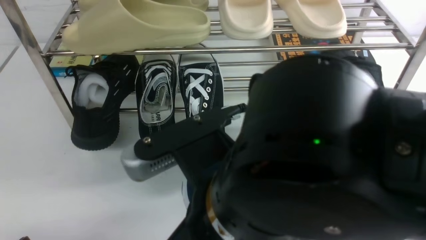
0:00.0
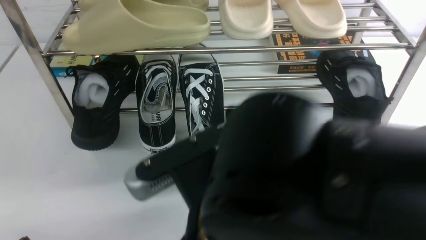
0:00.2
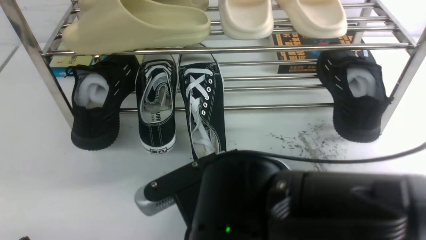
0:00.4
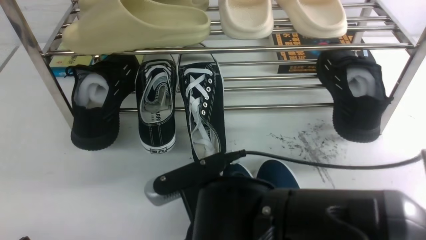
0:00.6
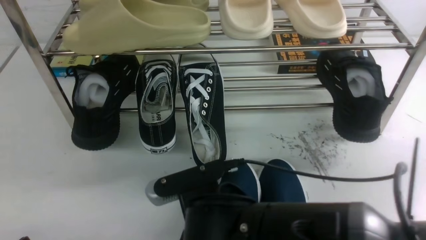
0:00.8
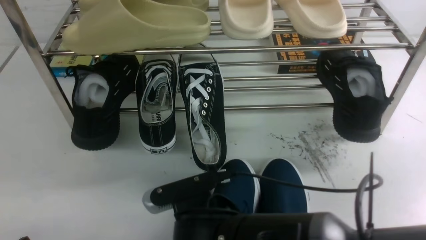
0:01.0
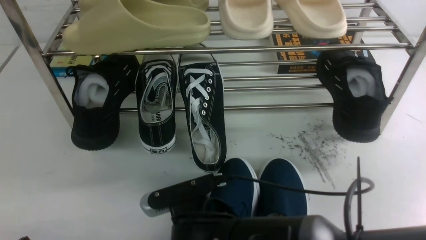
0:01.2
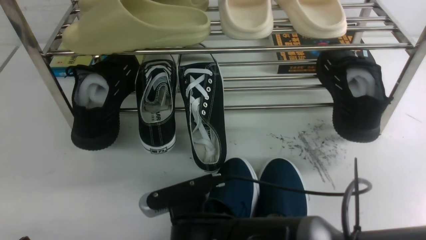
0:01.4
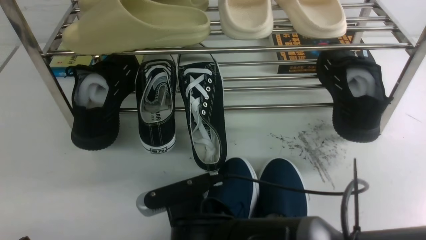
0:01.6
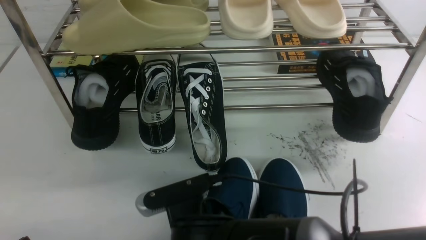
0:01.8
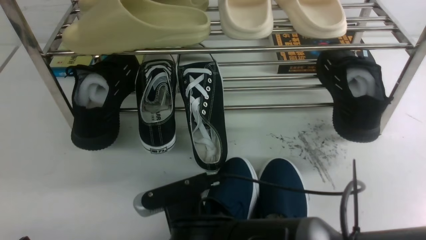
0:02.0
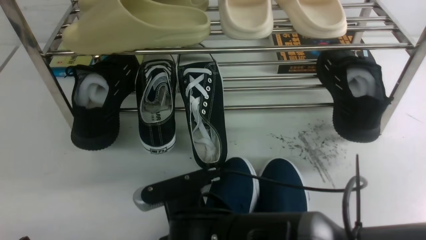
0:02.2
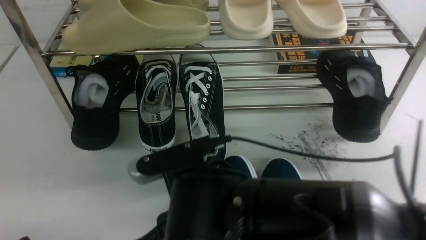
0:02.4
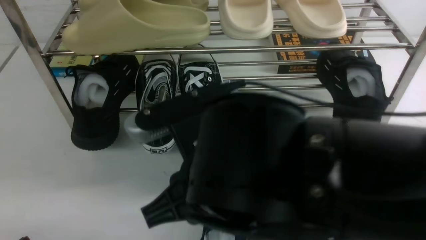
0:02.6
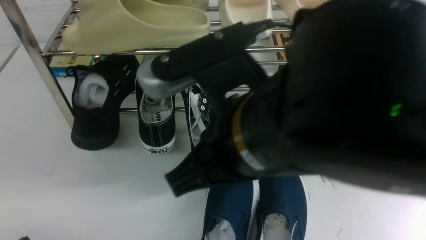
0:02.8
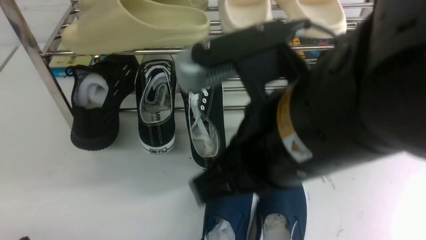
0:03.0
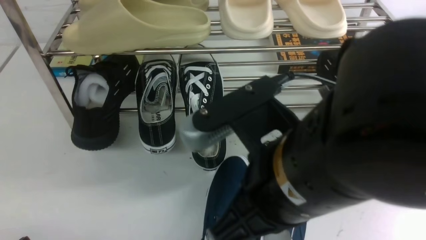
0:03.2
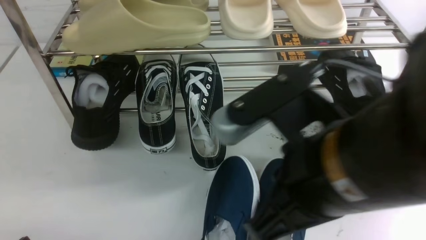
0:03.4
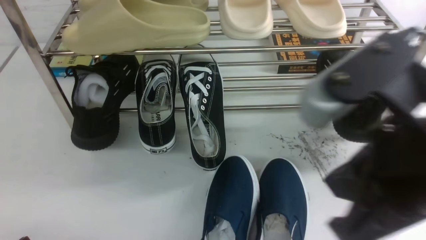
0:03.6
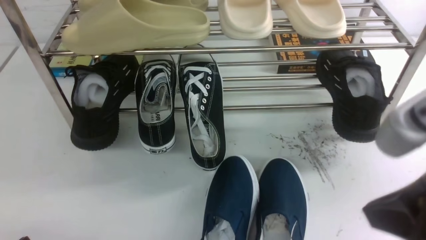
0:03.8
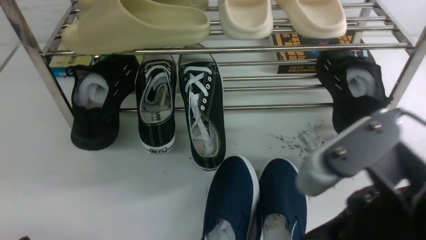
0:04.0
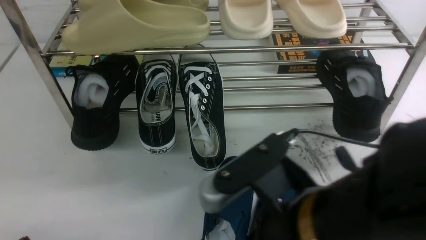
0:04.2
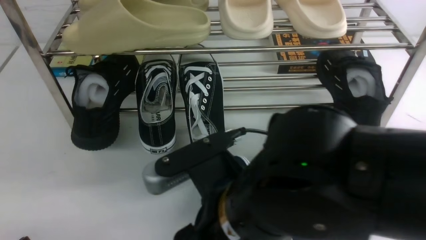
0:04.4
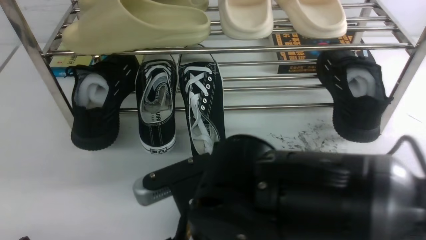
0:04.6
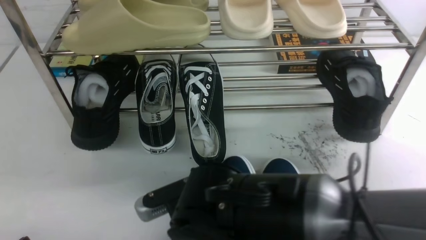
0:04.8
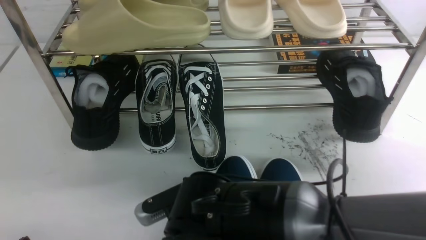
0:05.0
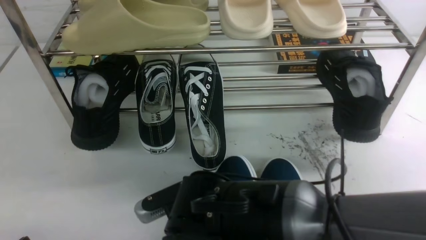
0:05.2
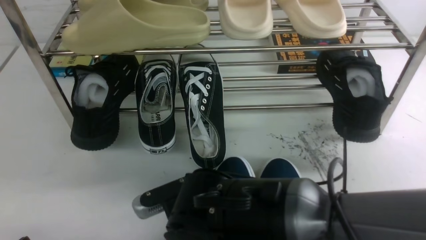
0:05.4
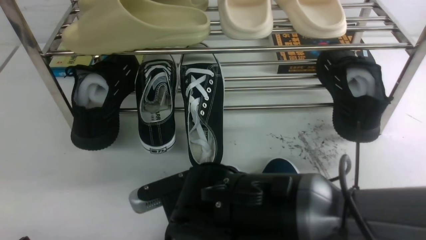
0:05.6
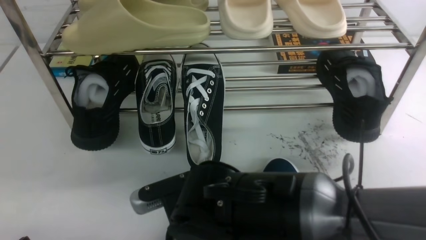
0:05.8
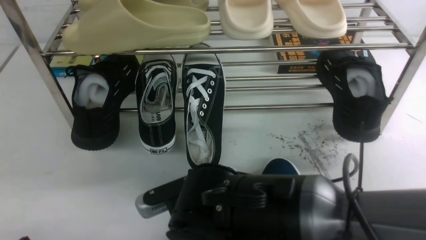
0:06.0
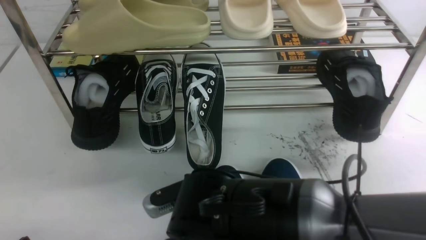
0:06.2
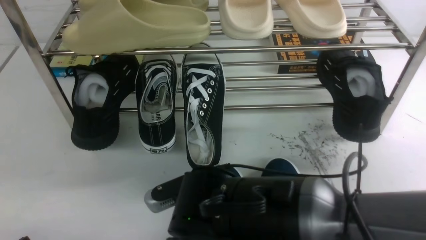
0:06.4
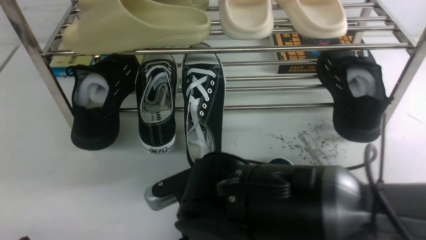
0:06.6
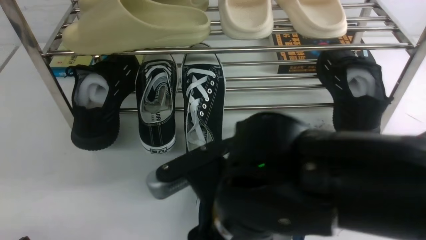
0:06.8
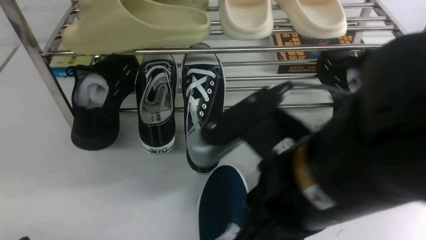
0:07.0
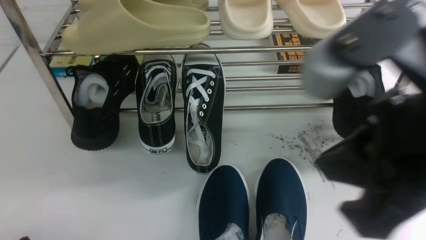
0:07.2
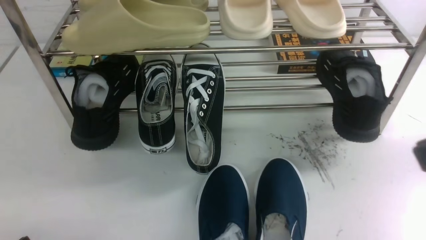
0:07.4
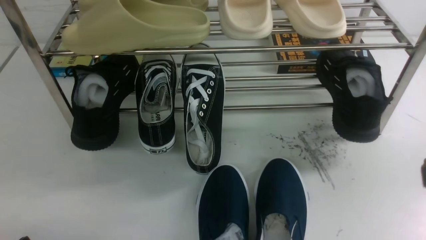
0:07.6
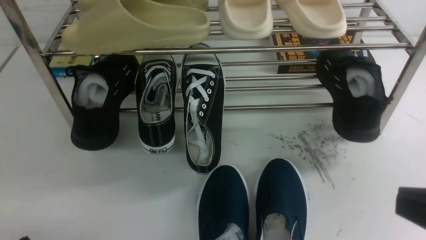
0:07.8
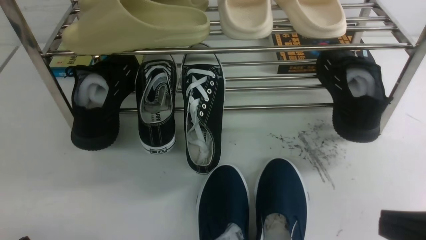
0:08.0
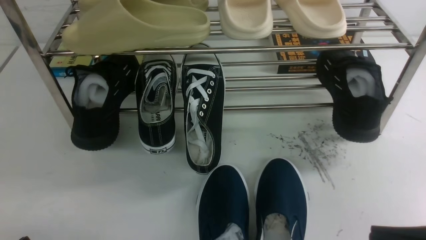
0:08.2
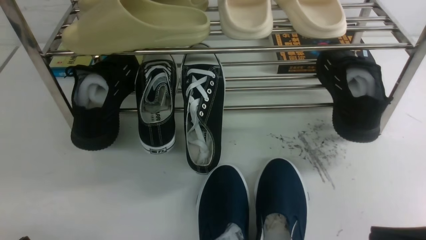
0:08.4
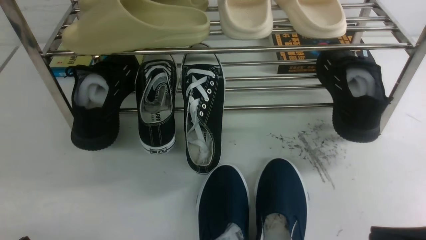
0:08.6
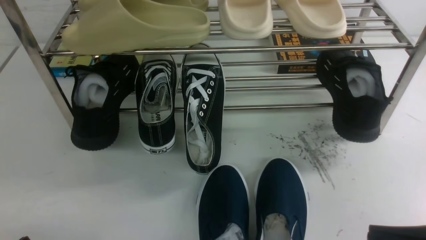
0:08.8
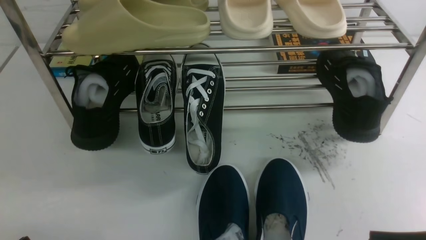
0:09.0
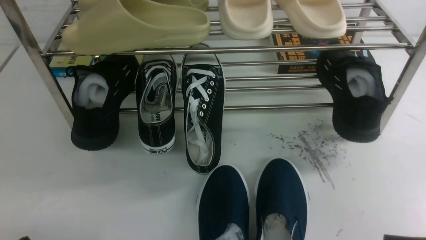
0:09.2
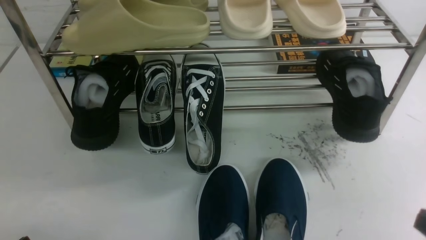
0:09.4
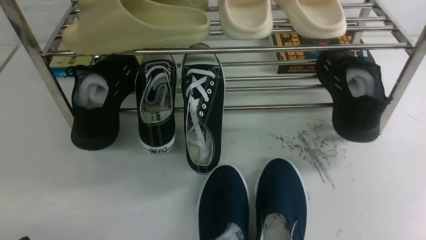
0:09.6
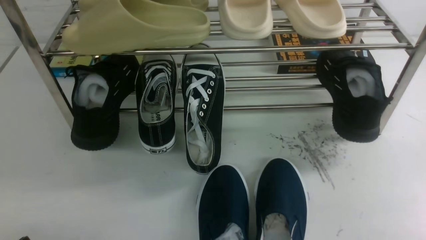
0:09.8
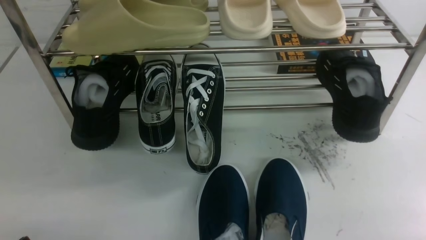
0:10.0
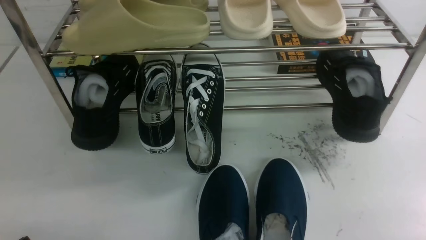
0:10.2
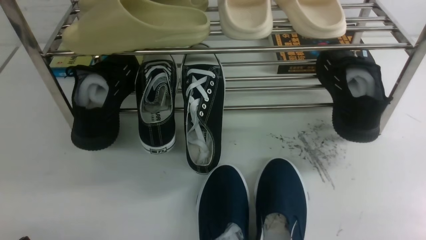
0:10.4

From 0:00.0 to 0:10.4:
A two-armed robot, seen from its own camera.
Step, from 0:00.0 to 0:02.8: use the right arm to take out the clamped shoe from the shoe rack and put it down.
From 0:00.0 to 0:01.4: The right gripper is displaced downward by approximately 15 cm.
From 0:01.4 to 0:03.0: The right gripper heads upward and to the right, covering about 20 cm, and opens, then closes again.
From 0:03.0 to 0:04.4: The right gripper goes some 10 cm downward, goes to the right and returns, some 10 cm each way, and opens its fingers.
From 0:04.4 to 0:06.0: The right gripper heads downward, covering approximately 10 cm, and closes.
From 0:06.0 to 0:07.4: The right gripper moves to the right and upward, some 30 cm, and opens, then closes once more.
From 0:07.4 to 0:09.0: The right gripper moves downward, approximately 15 cm.
From 0:09.0 to 0:10.4: The right gripper heads downward and to the right, covering some 15 cm.

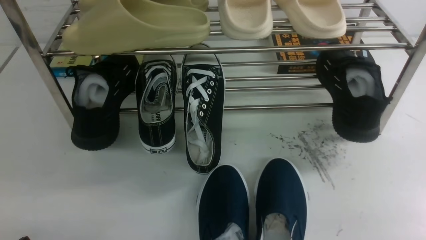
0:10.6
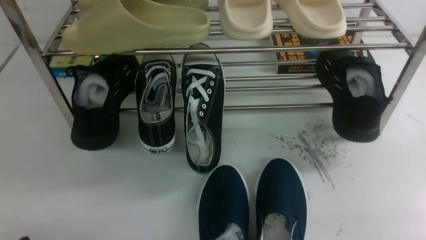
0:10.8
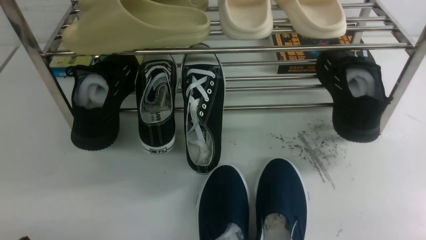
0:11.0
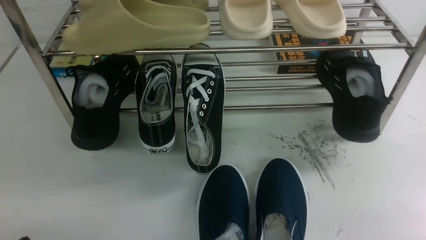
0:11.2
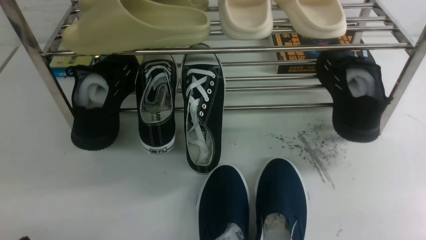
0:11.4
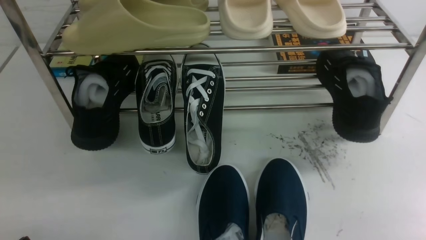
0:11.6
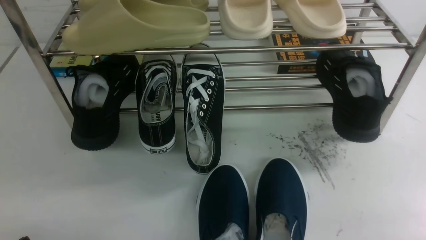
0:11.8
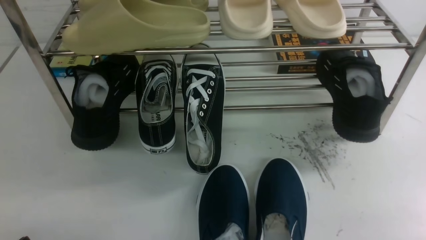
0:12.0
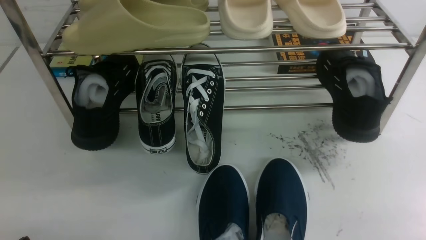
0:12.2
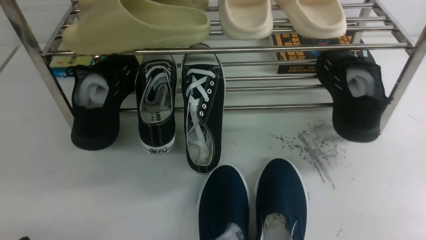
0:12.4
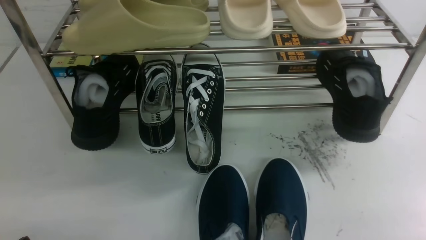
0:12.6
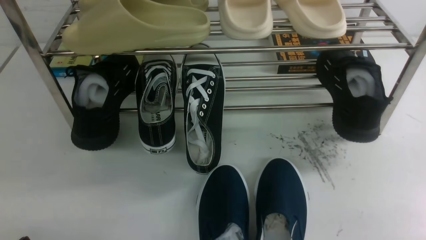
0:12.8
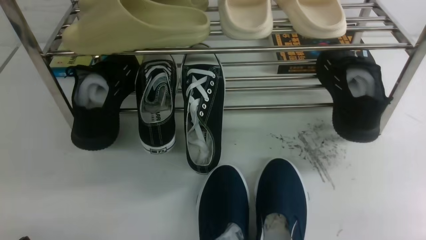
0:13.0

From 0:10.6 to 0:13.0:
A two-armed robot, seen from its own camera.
From 0:10.6 to 0:13.0: Both grippers stay about where they are.

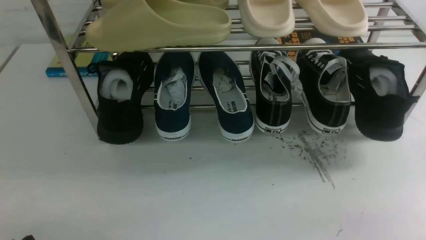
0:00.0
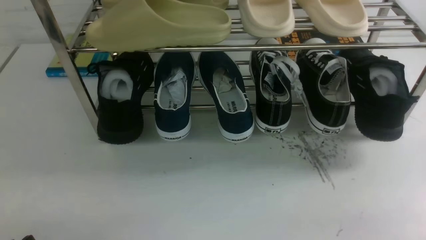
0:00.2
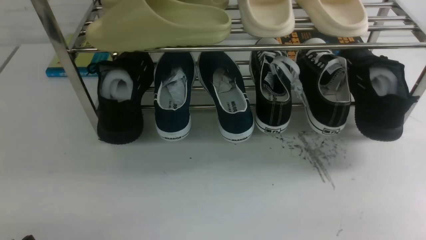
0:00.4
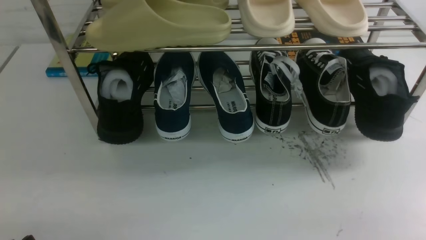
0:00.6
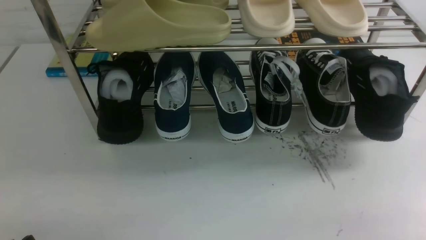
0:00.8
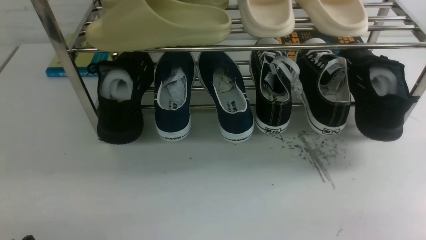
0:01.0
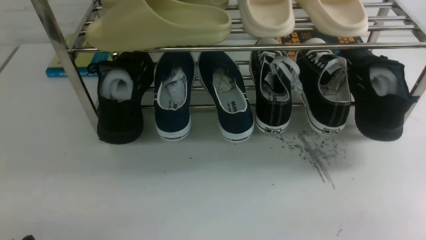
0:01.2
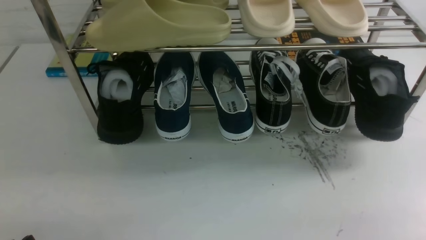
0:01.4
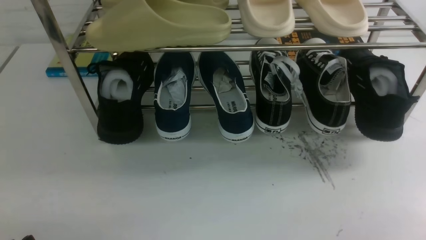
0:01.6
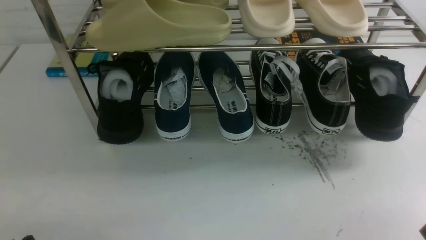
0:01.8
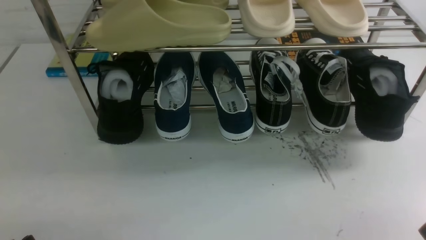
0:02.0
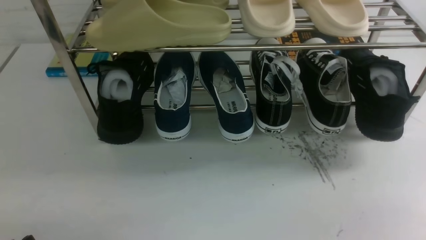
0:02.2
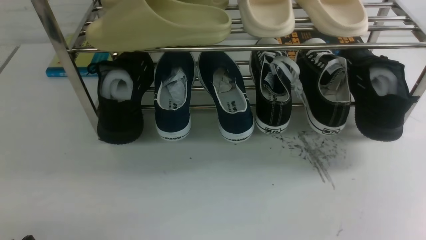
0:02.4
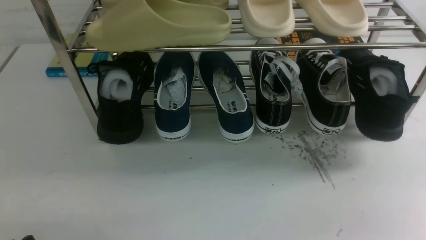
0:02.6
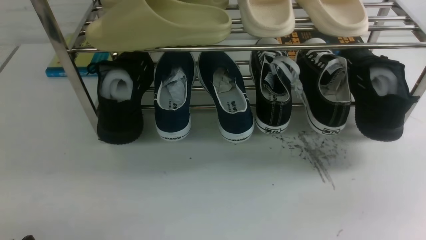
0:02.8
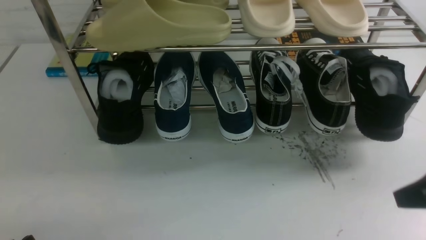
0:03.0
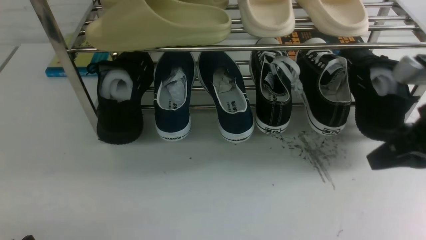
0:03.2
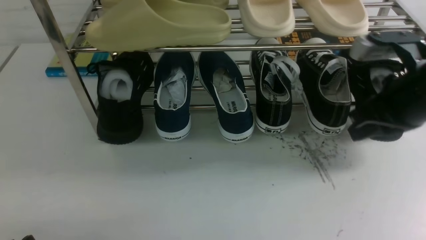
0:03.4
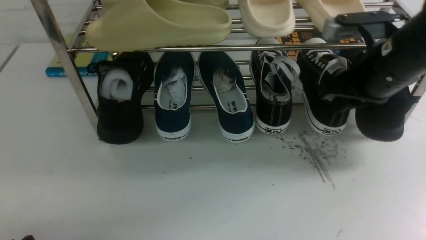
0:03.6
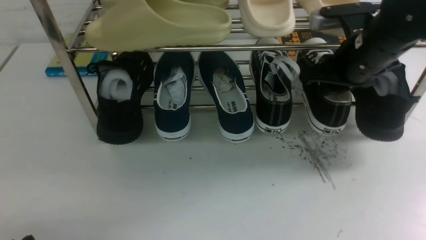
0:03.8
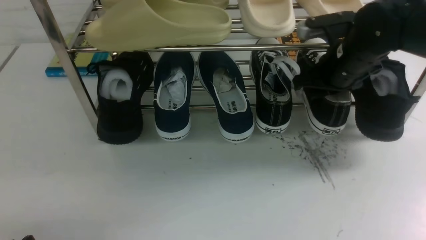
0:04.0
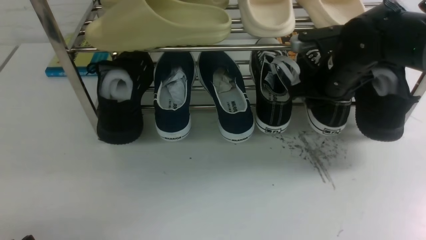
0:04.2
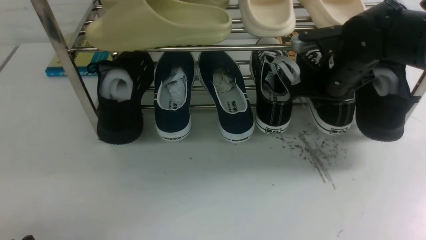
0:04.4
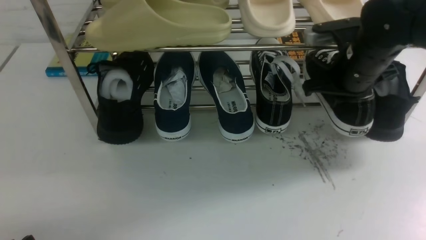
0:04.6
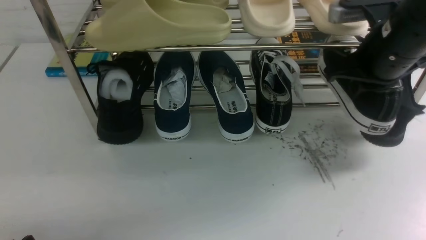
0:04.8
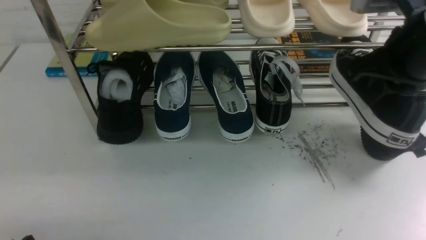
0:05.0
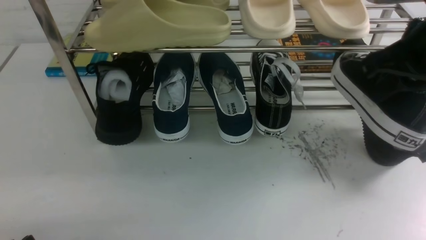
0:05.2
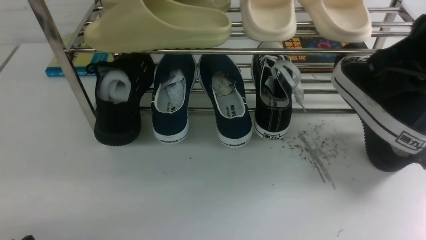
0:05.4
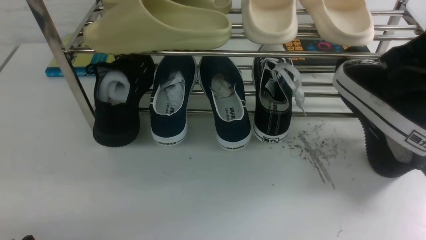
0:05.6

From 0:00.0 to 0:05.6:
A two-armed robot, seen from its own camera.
Step, from 0:00.0 to 0:04.8: use the right arm to clamp a shoe on the right side of the shoe rack.
From 0:02.8 to 0:04.2: The right gripper goes approximately 25 cm forward, and opens its fingers.
From 0:04.2 to 0:05.6: The right gripper heads backward and upward, covering roughly 20 cm, and closes its fingers.
